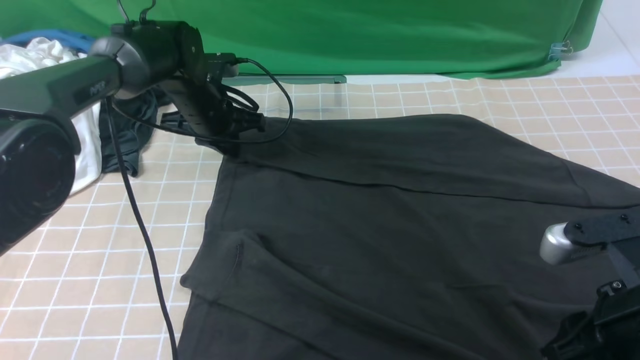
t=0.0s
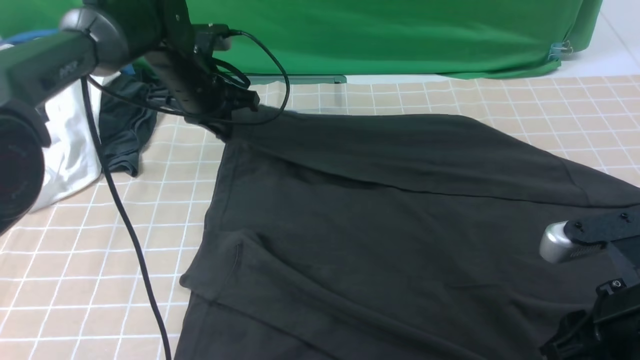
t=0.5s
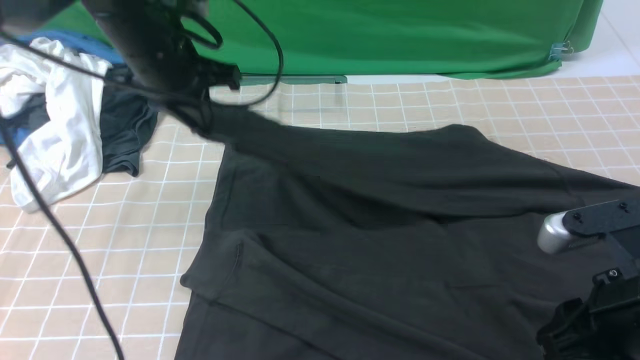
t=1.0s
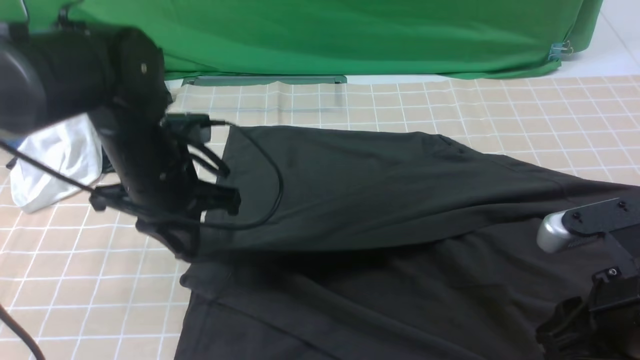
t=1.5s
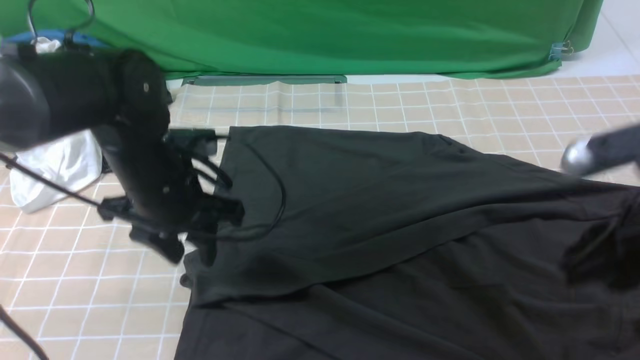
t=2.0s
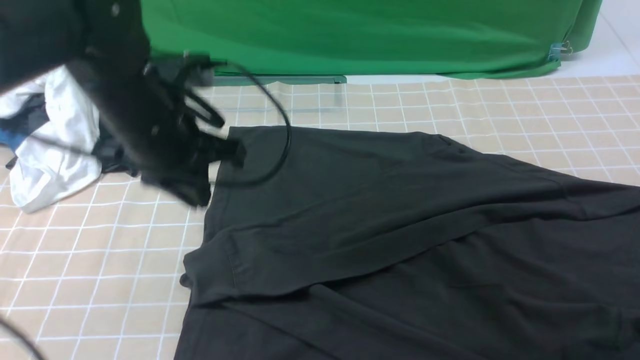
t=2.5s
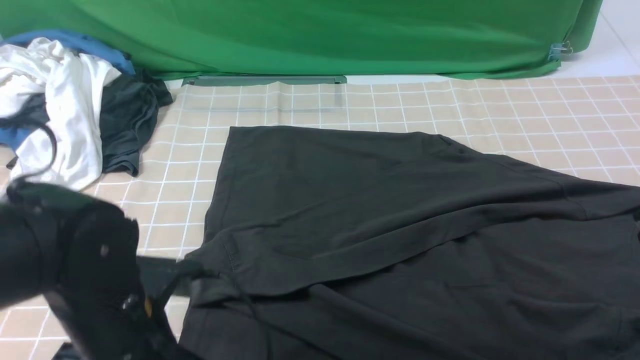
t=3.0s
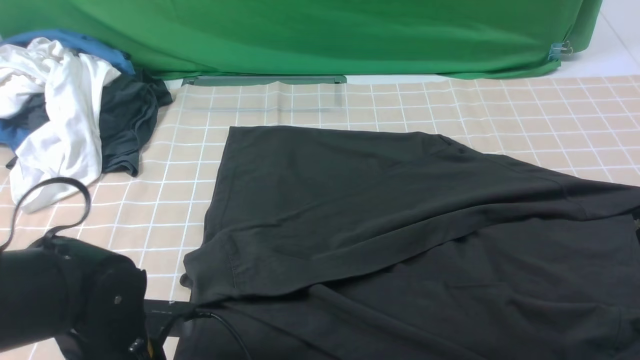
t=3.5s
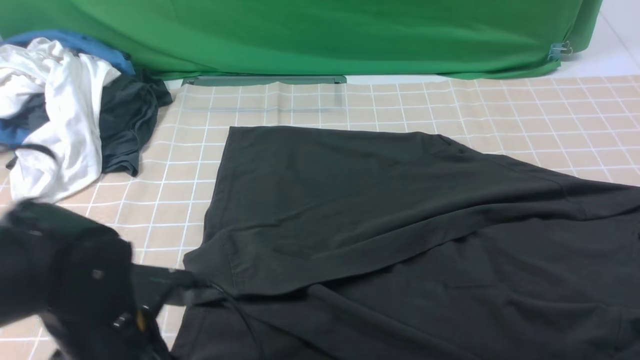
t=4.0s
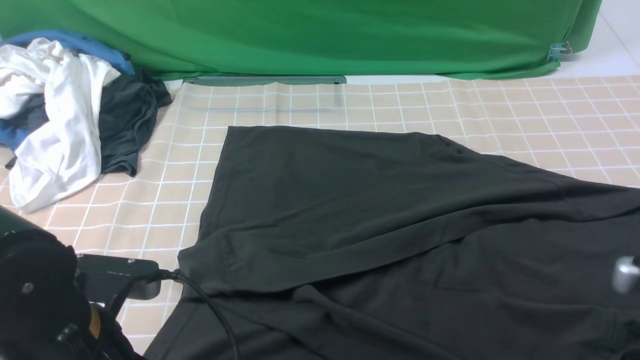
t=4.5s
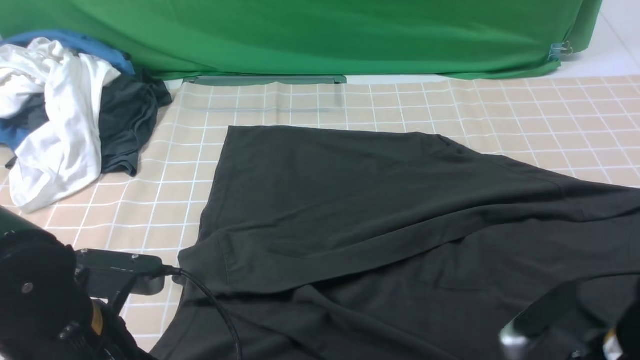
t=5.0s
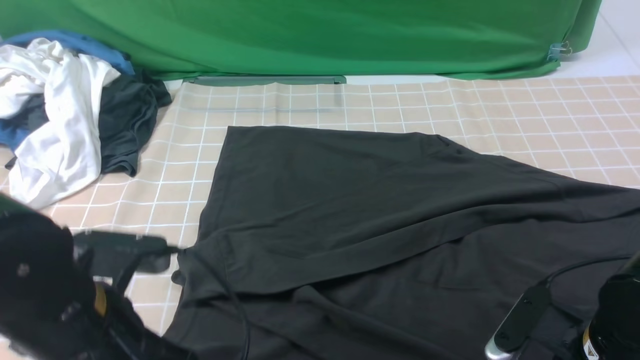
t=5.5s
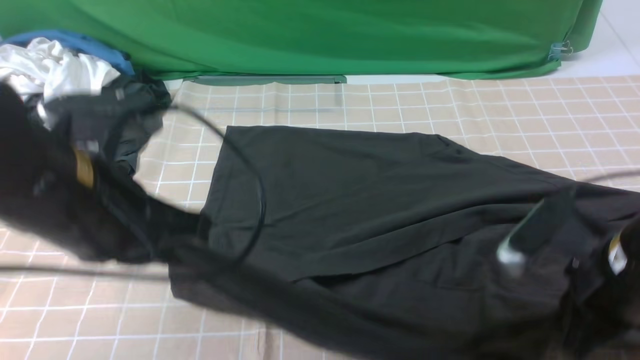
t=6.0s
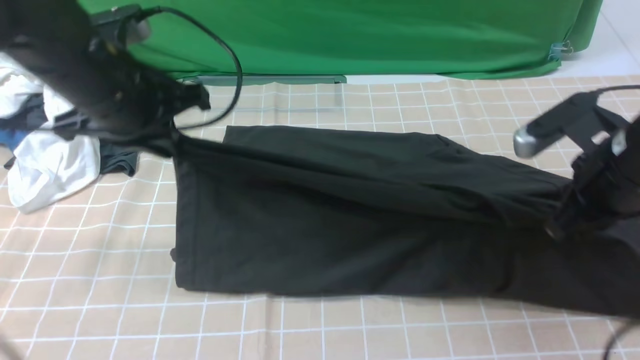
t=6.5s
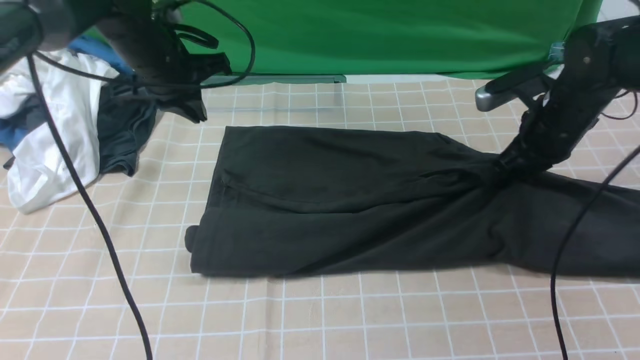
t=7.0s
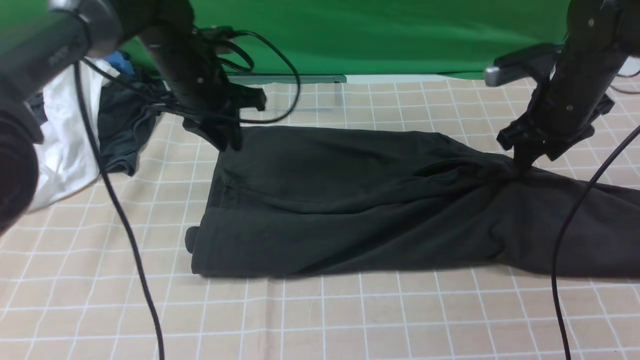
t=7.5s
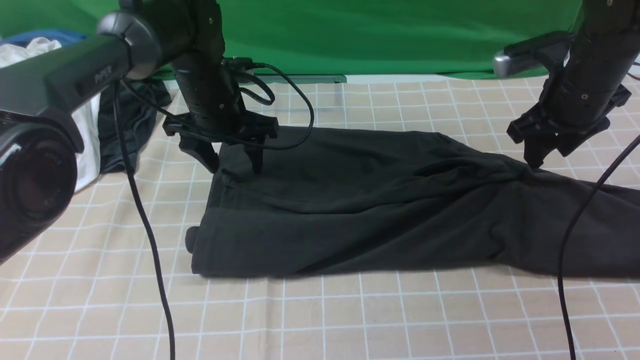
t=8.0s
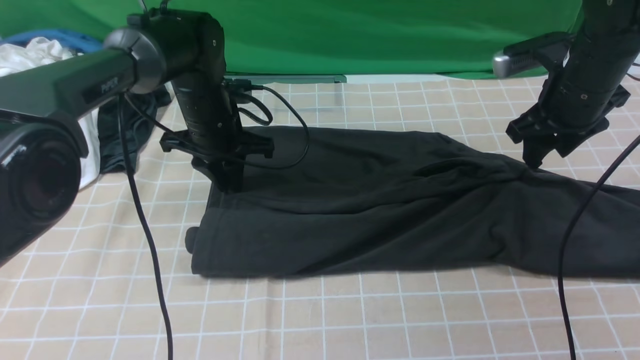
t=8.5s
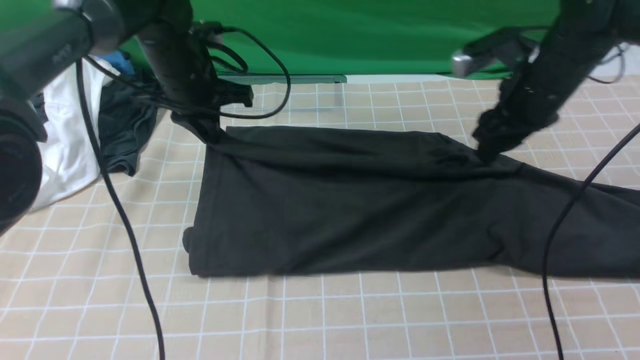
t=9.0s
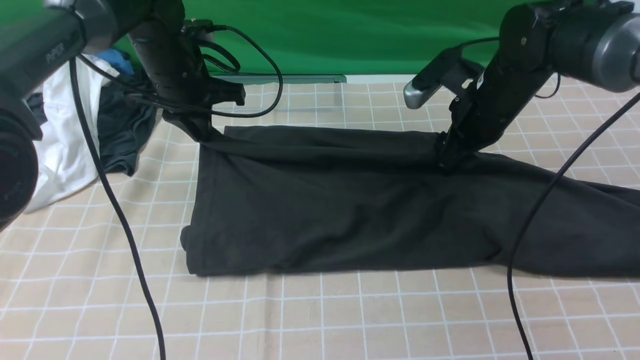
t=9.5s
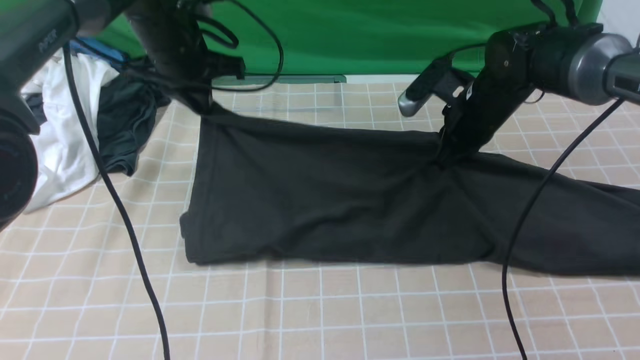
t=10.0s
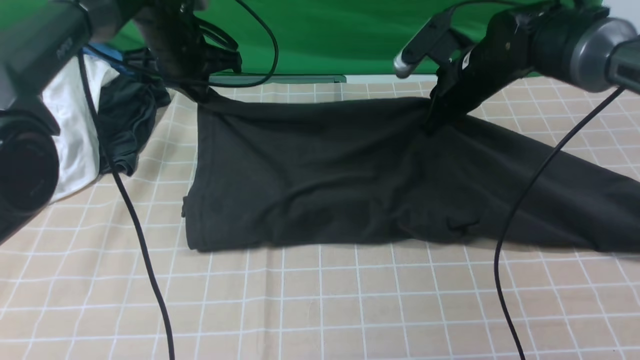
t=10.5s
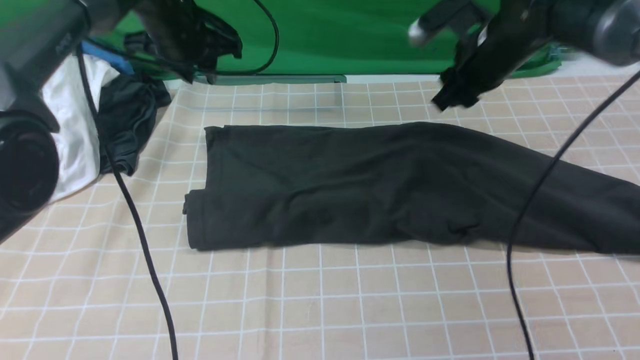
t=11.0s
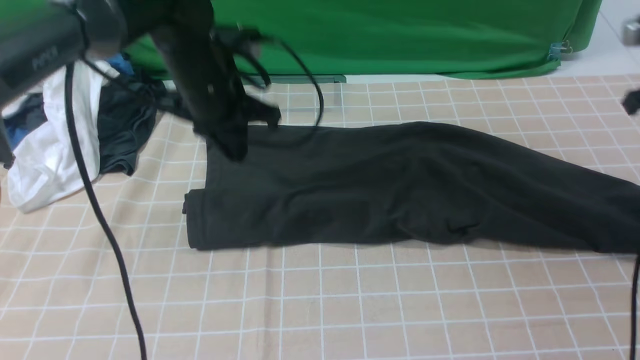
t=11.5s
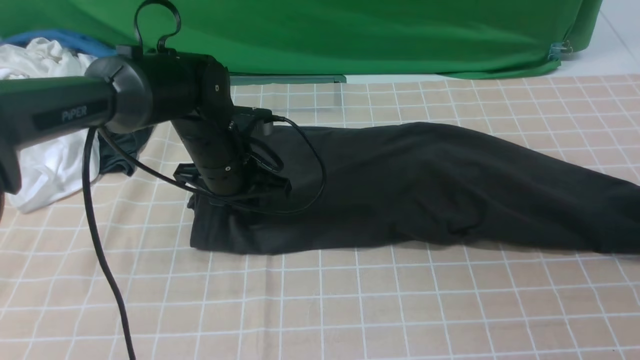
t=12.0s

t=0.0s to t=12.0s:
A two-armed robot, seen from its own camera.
Step, t=0.5s to t=2.0s: use the left arm to drag and drop the cuff onto the cuff closest to the left arm.
Step, t=2.5s to t=5.5s: use both arms simultaneously to clamp the lower edge of the clothing fabric.
Step, t=6.0s to t=10.5s: use both arms to drag the lower edge of the fabric forward and fold it over the upper edge.
t=0.0s to t=2.0s: The left gripper shifts roughly 15 cm backward, and opens its fingers; the right gripper goes about 5 cm upward.
t=2.0s to t=4.0s: The right gripper heads to the right, covering roughly 5 cm. Meanwhile the left gripper heads backward, covering about 15 cm, and closes up.
t=4.0s to t=6.0s: The left gripper travels upward and forward by roughly 15 cm, while the right gripper goes about 10 cm to the left and downward, and opens and closes again.
t=6.0s to t=8.0s: The left gripper shifts about 25 cm forward and downward, and opens up. Meanwhile the right gripper is displaced forward by approximately 20 cm, and opens up.
t=8.0s to t=10.0s: The right gripper shifts roughly 10 cm to the left, and closes its fingers. The left gripper moves upward, roughly 5 cm, and closes its fingers.
t=10.0s to t=12.0s: The right gripper goes approximately 25 cm to the right, and opens up. The left gripper heads backward, downward and to the right, covering roughly 15 cm.

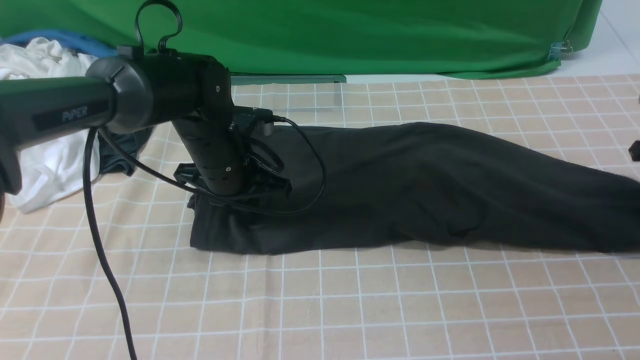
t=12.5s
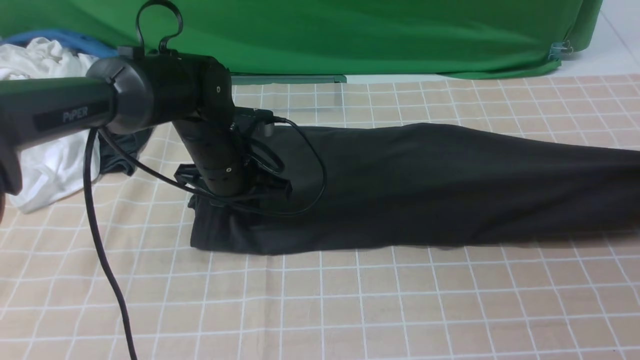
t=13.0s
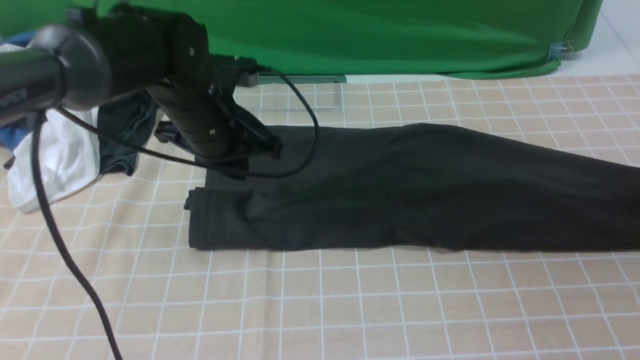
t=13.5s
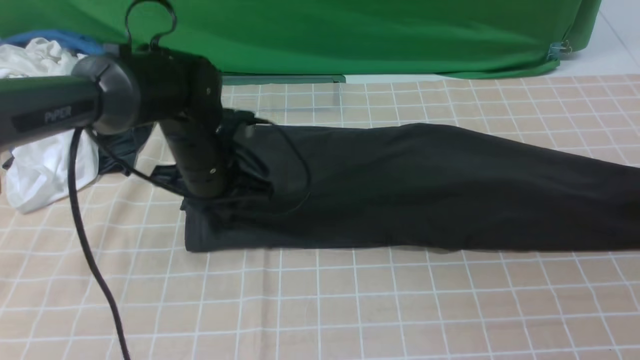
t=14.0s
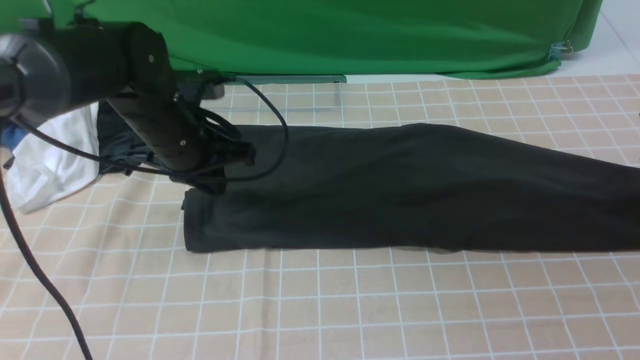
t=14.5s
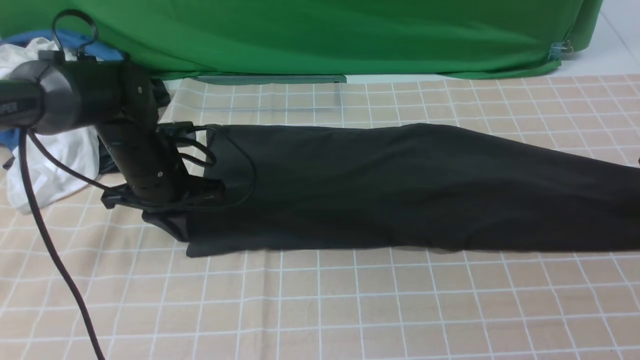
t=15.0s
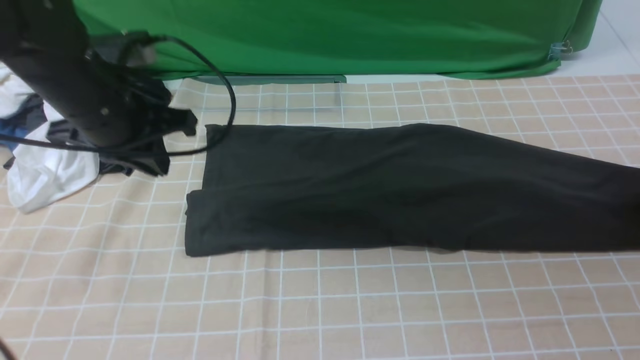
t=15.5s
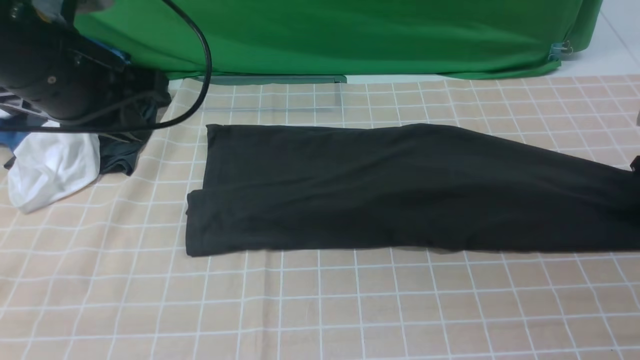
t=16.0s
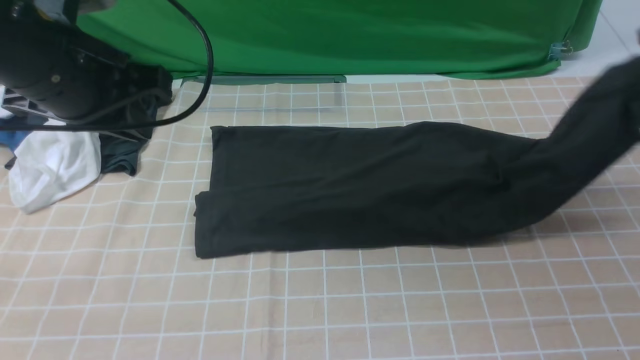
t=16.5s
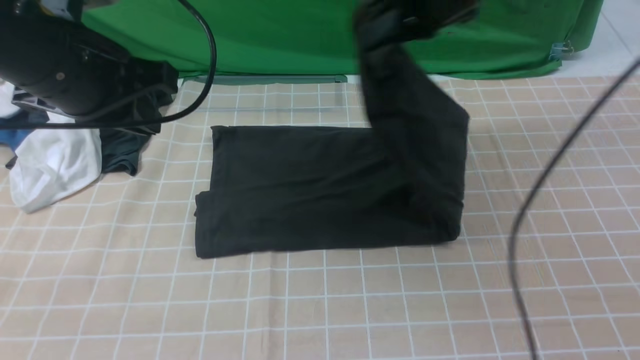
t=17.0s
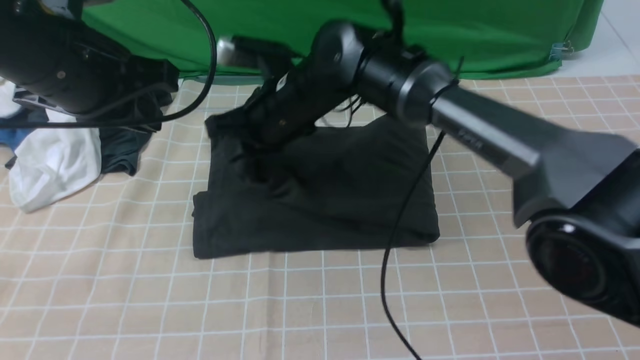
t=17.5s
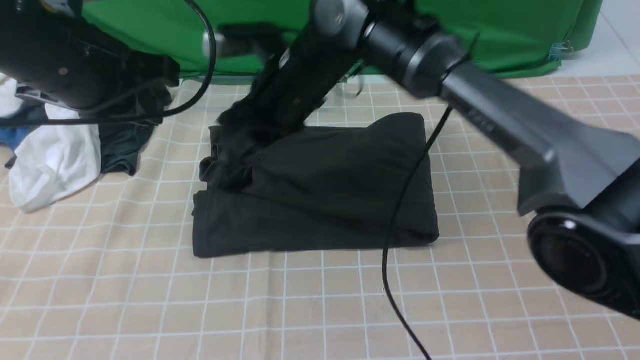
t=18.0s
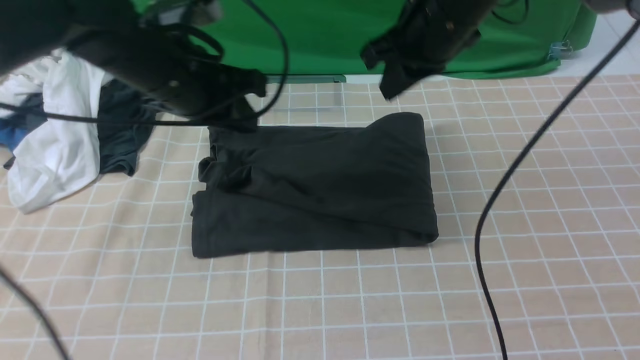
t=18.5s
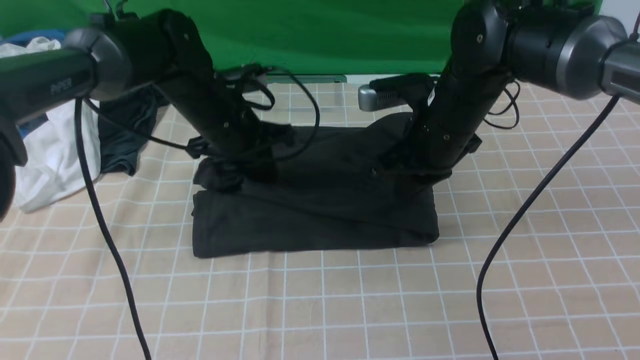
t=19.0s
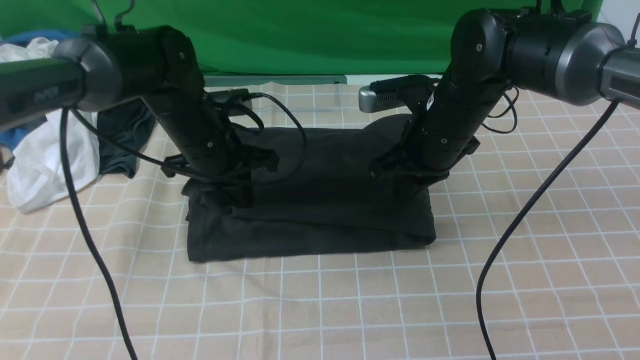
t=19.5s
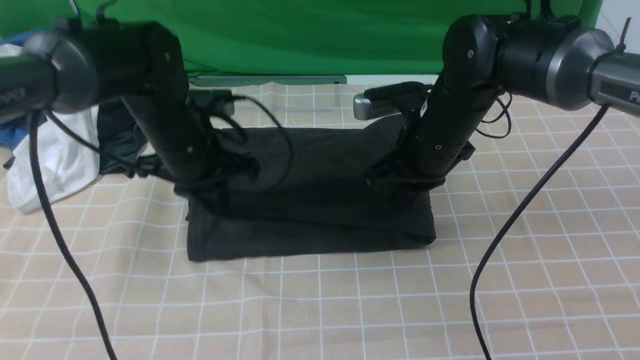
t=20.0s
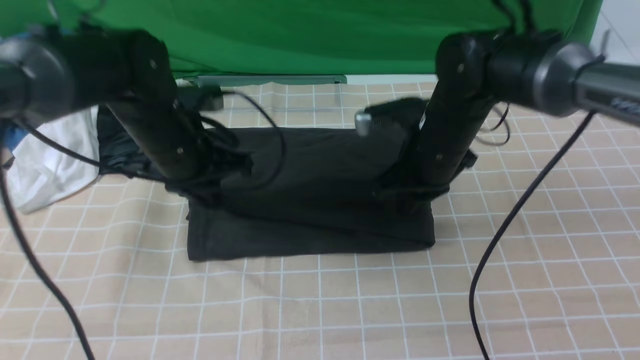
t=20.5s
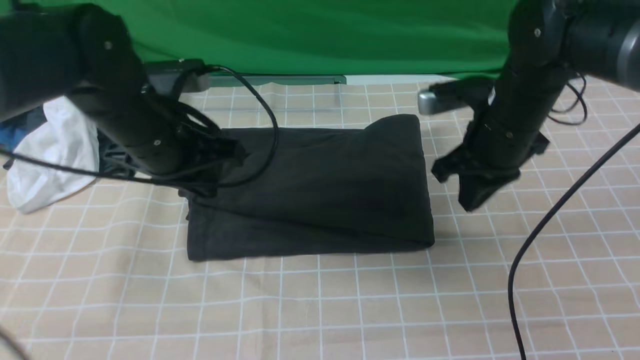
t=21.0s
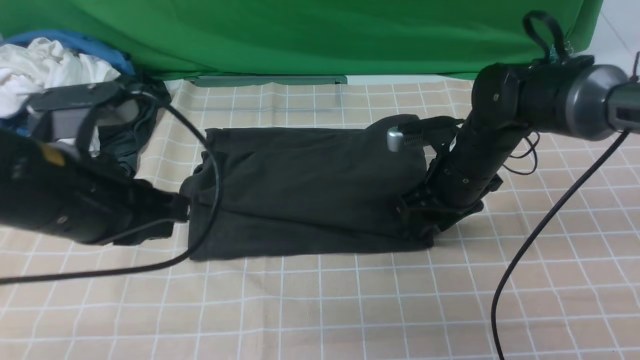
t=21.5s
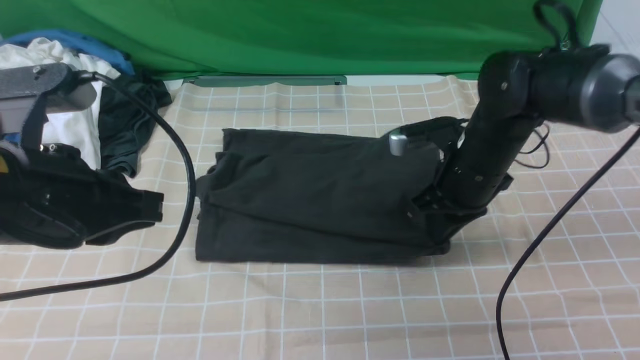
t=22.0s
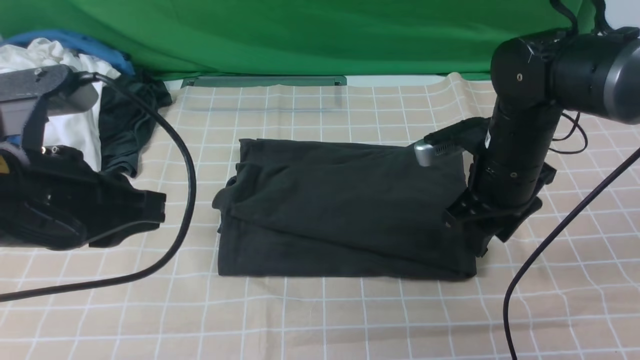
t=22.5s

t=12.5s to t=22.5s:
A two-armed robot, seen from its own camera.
Step, t=12.5s to t=16.0s: use the right arm to clamp the right edge of the fabric.
Step, t=16.5s to t=18.5s: use the right arm to drag the right edge of the fabric to the left and folds it over the left edge.
t=12.5s to t=14.5s: The right gripper opens its fingers, while the left gripper ends up some 5 cm from where it was.
t=14.5s to t=16.5s: The left gripper heads upward and backward, covering approximately 15 cm. The right gripper moves upward and to the left, some 10 cm, and closes up.
t=16.5s to t=18.5s: The left gripper goes some 10 cm forward, to the right and downward. The right gripper goes some 25 cm to the left.
t=18.5s to t=20.5s: The two grippers go some 10 cm downward.
t=20.5s to t=22.5s: The right gripper goes roughly 5 cm to the right, and opens up; the left gripper shifts roughly 20 cm backward and upward.
